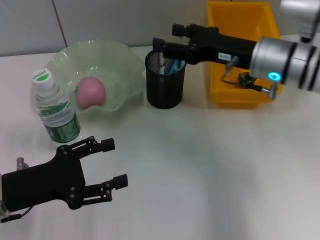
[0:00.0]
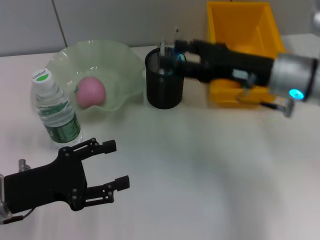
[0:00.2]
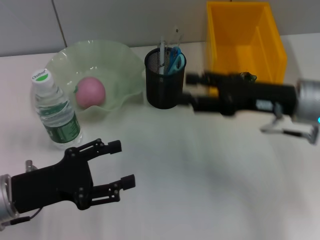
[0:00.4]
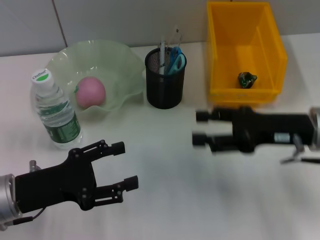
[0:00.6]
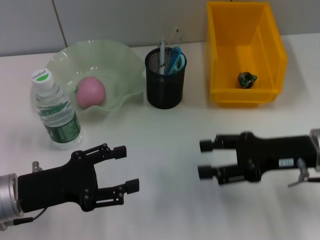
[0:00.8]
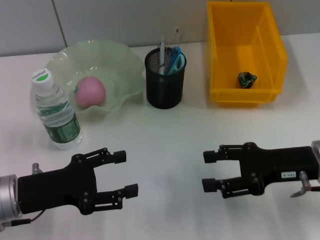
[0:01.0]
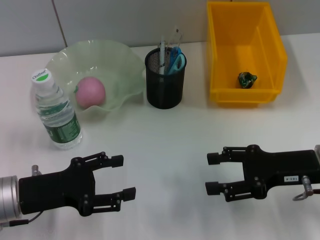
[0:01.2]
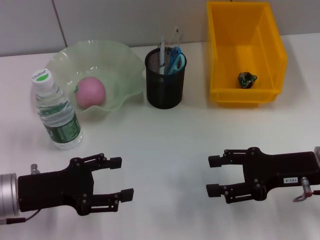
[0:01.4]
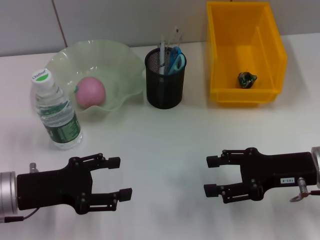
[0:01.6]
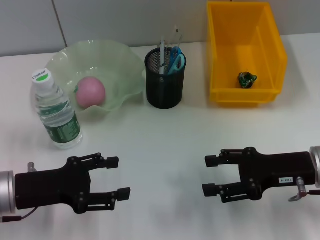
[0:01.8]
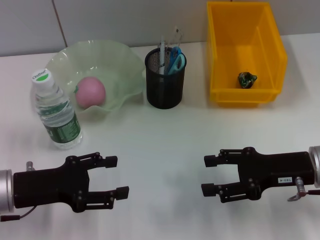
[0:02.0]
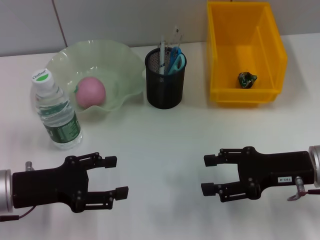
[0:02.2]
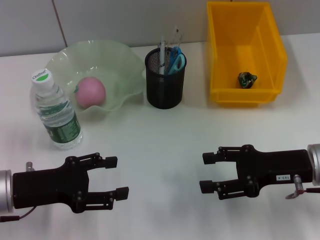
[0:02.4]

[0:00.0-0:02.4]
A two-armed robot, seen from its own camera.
0:00.0 to 0:01.2: The right gripper is displaced backward, to the right and downward by about 15 cm.
0:01.2 to 0:02.4: The grippers move only a little.
